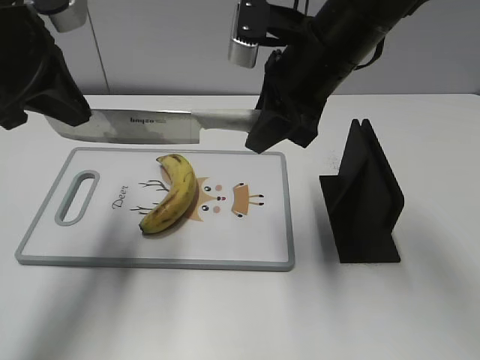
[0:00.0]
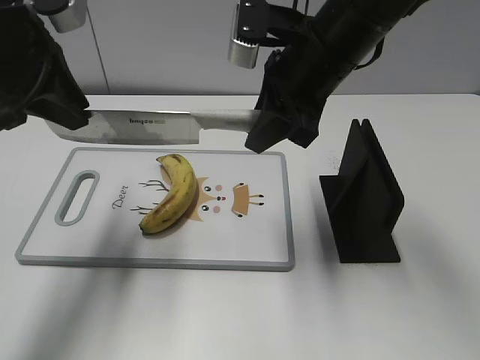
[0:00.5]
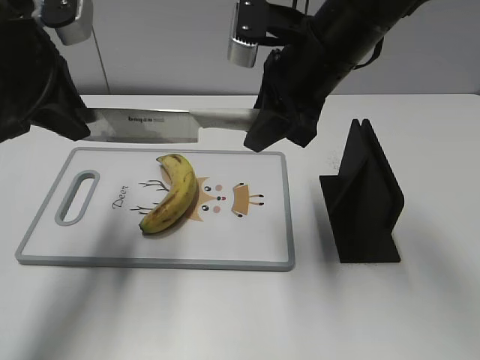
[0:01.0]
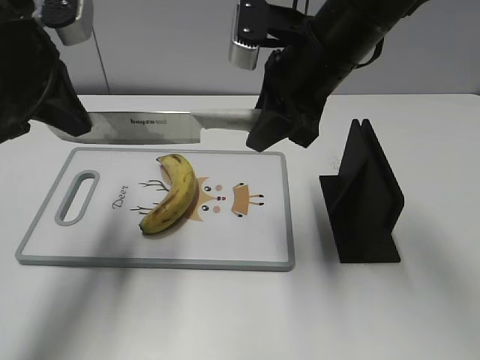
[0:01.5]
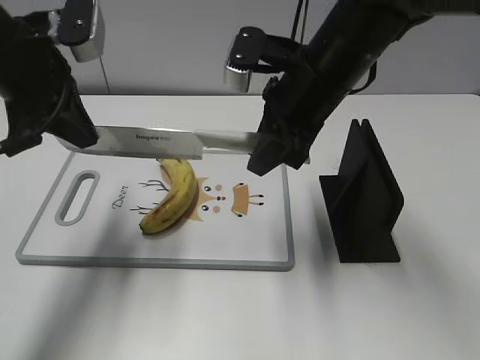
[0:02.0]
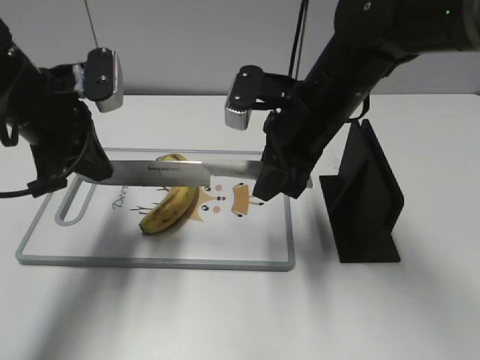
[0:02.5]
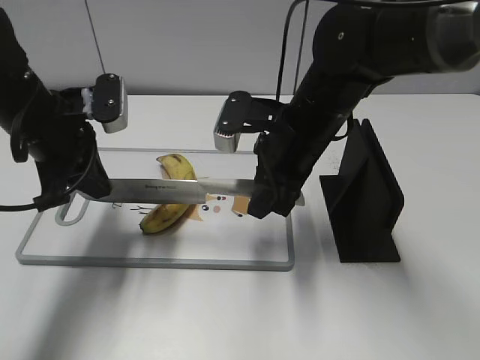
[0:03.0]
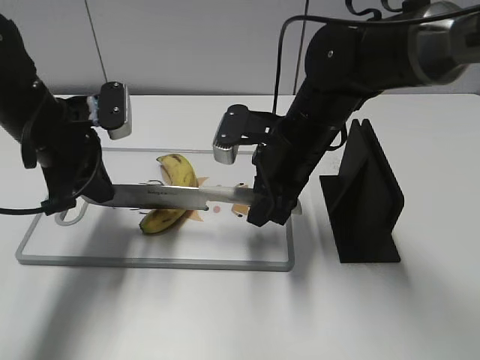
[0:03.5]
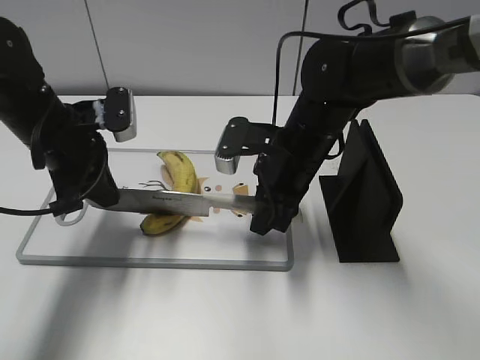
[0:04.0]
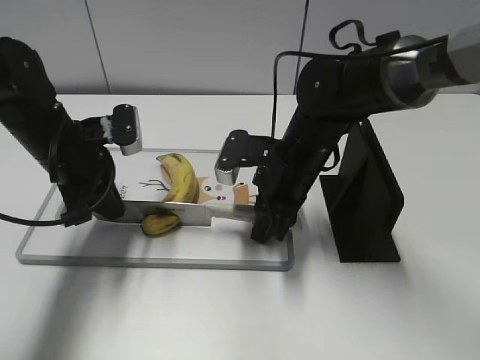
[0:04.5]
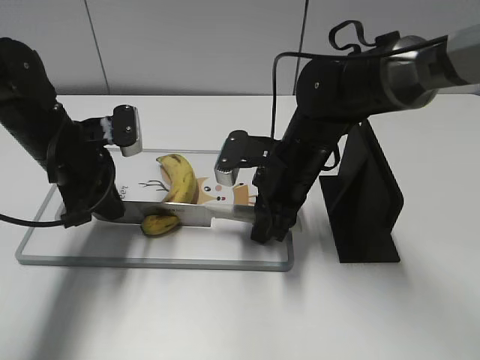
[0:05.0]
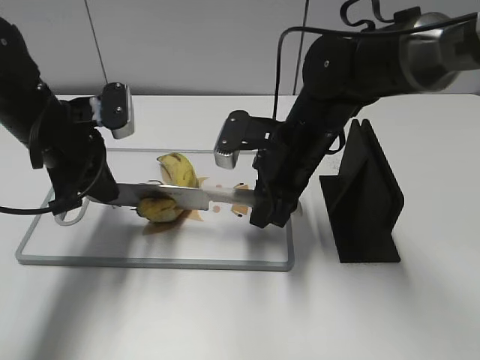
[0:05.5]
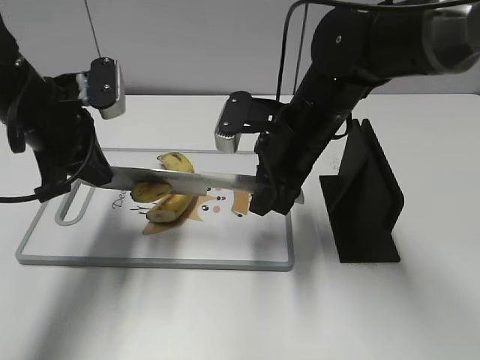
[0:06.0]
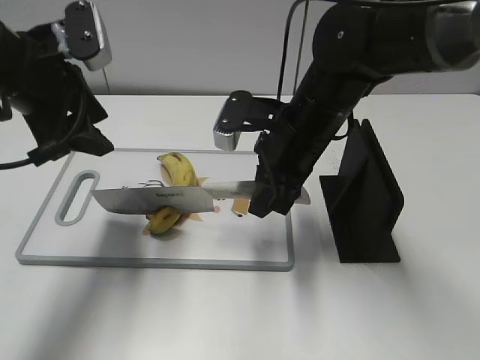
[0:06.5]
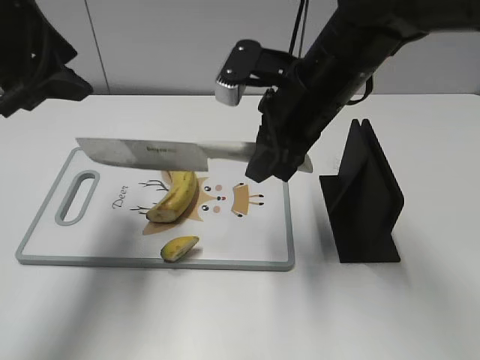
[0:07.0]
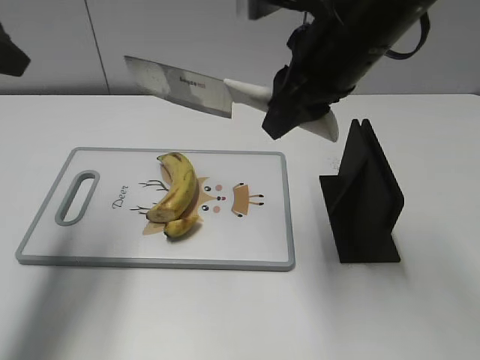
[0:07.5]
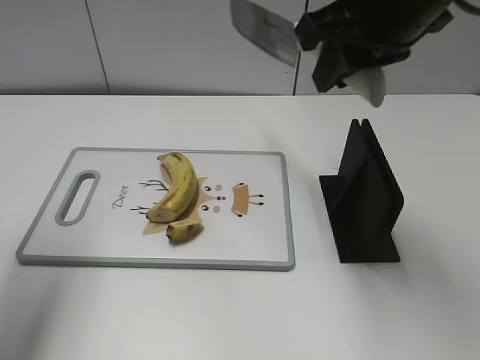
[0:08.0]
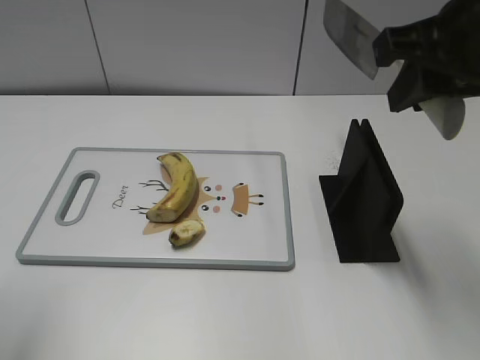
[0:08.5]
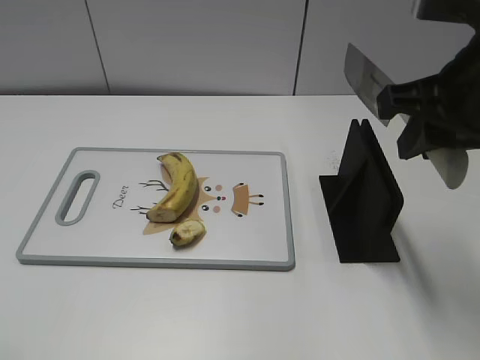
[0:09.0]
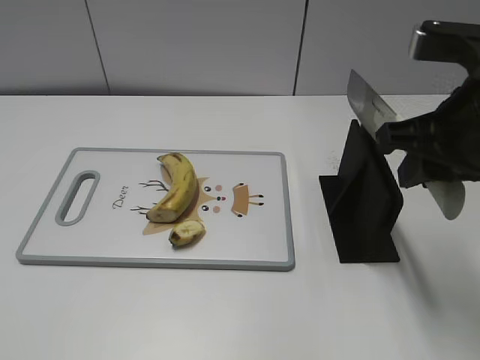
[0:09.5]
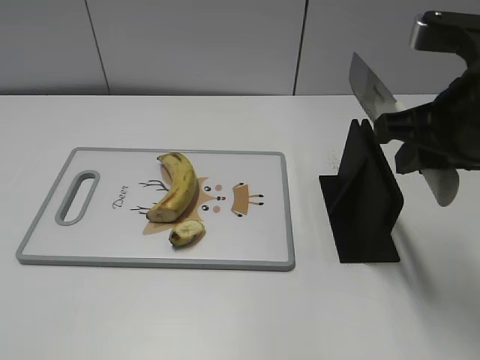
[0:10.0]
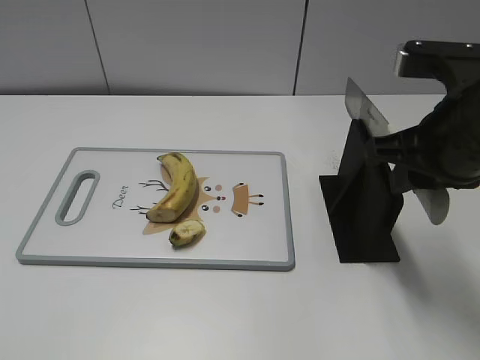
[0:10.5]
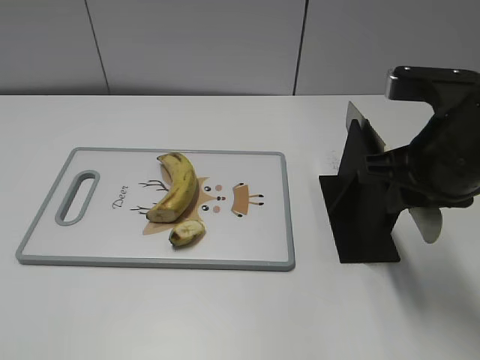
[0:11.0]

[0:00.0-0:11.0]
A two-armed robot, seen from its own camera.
Task of the whole recording: cut banana.
Step, 0:00.0 to 0:02.5: Lift the knife with your right hand.
Step, 0:03.0 to 0:08.0: Cut the banana with your right hand.
Step, 0:08.5 to 0:09.5: Lift the knife with your right hand.
0:00.0 to 0:02.0: The grippers make only small movements.
0:02.0 to 0:03.5: Both grippers move downward, roughly 10 cm.
0:03.5 to 0:05.5: The grippers make only small movements.
0:05.5 to 0:07.5: The grippers both shift upward by about 15 cm. The left gripper opens.
0:07.5 to 0:09.0: The right gripper goes about 10 cm to the right and backward. The left gripper shifts roughly 20 cm backward.
0:09.0 to 0:11.0: The right gripper goes roughly 5 cm downward.

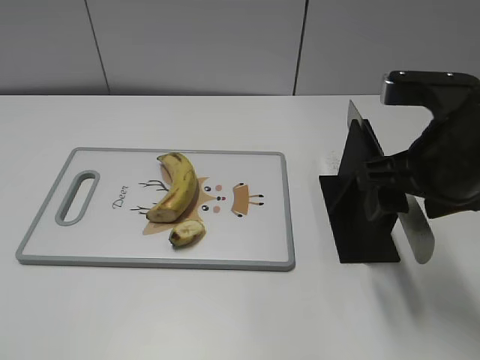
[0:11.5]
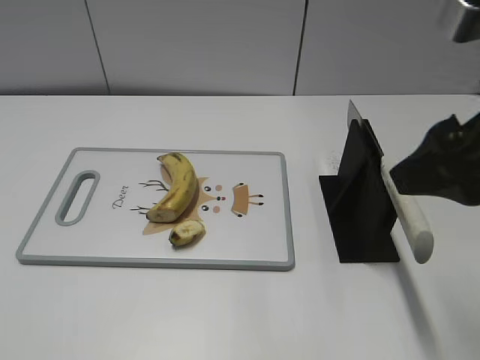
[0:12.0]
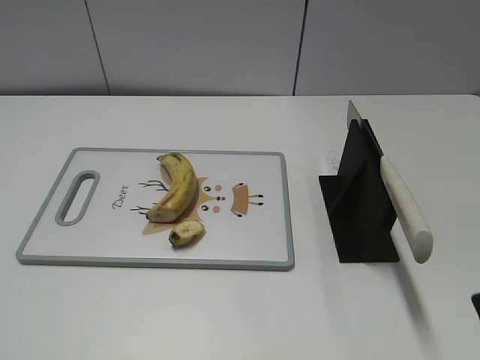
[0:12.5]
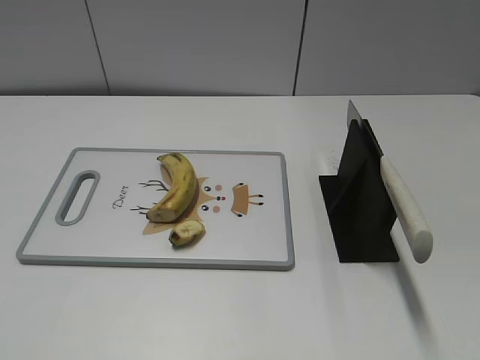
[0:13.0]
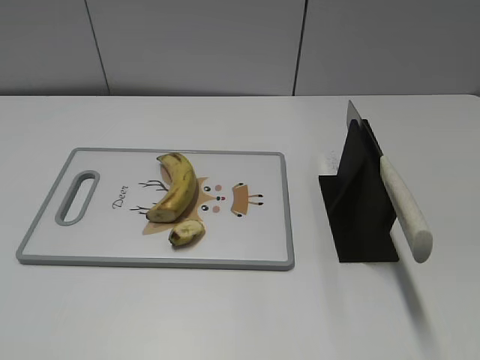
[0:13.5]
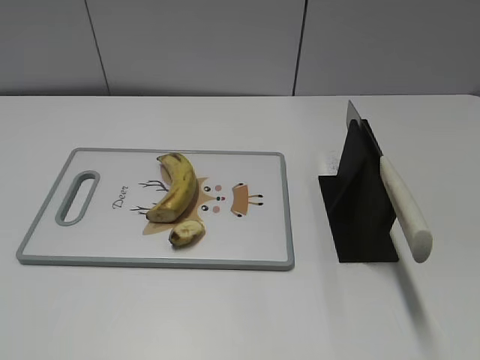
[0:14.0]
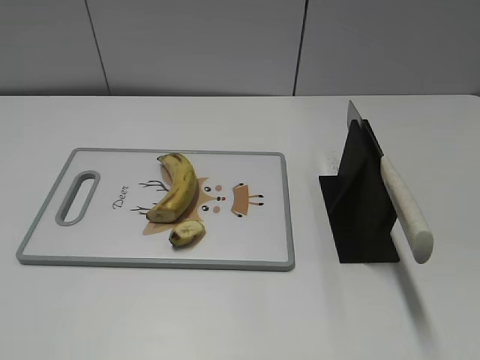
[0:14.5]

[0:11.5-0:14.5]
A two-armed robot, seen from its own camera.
Task of the whole recording: cut banana.
Step, 0:11.5 to 0:14.5: Place the knife on the storage rack with your right hand.
0:11.5 to 0:13.0: The right gripper is displaced backward and to the right by roughly 20 cm.
